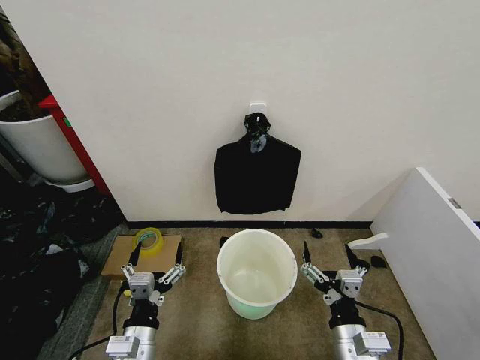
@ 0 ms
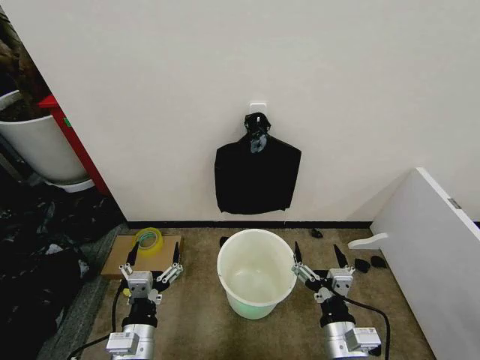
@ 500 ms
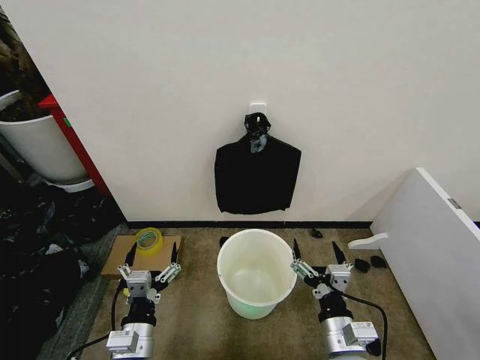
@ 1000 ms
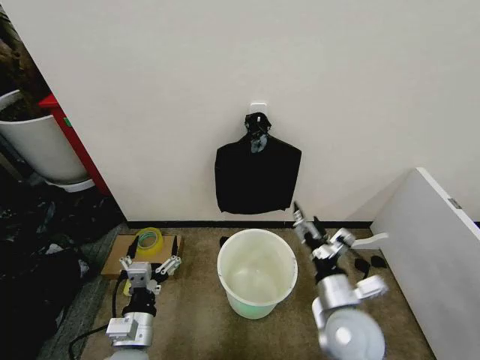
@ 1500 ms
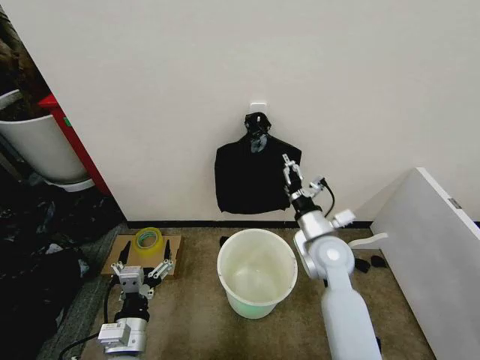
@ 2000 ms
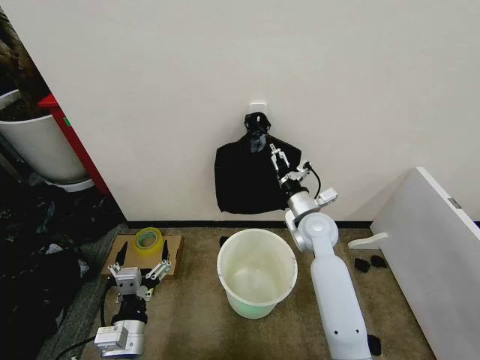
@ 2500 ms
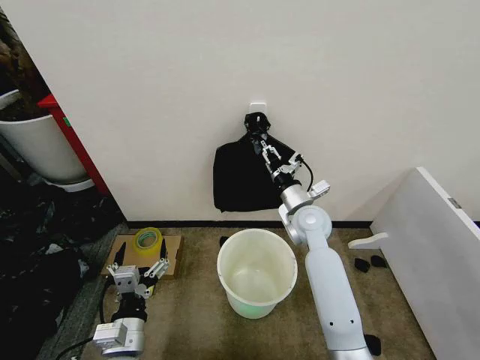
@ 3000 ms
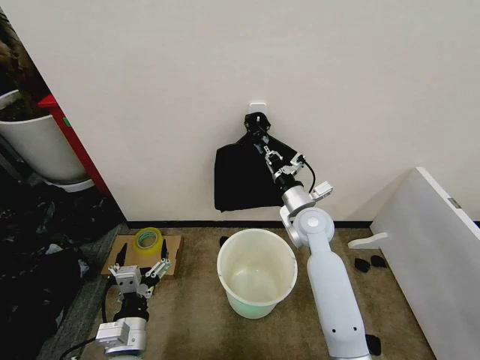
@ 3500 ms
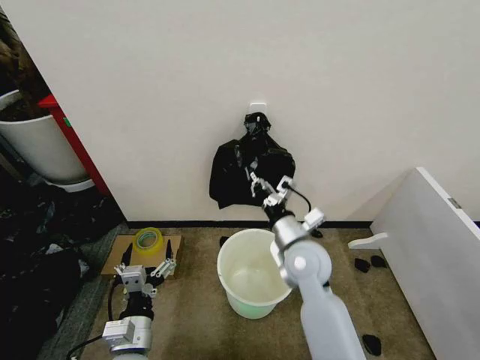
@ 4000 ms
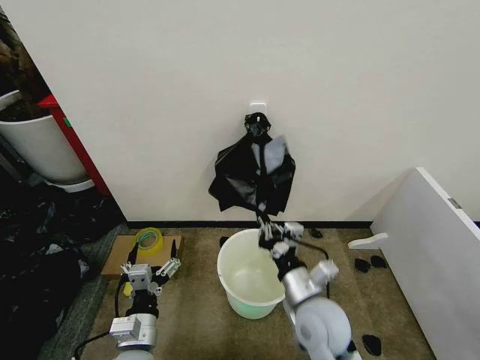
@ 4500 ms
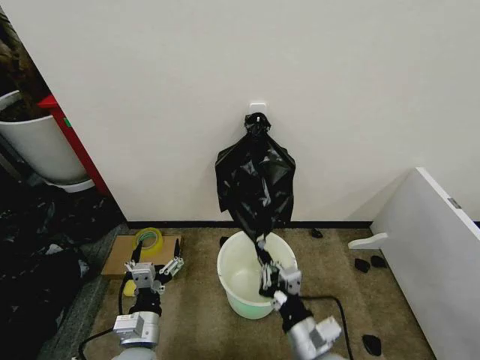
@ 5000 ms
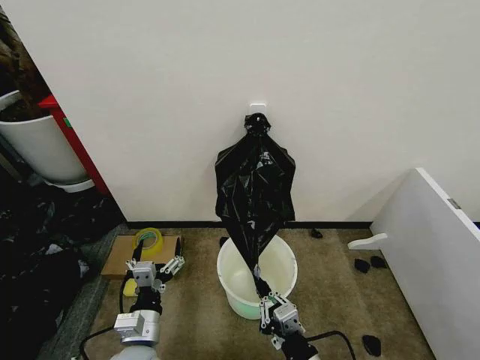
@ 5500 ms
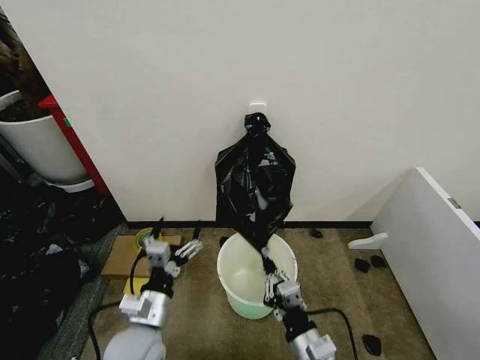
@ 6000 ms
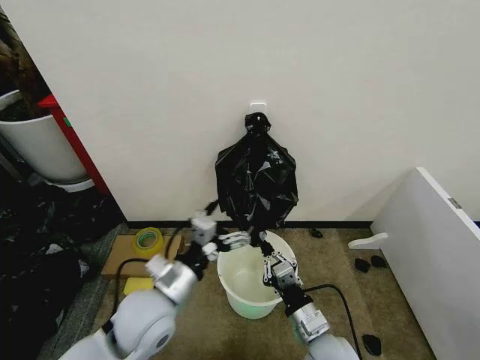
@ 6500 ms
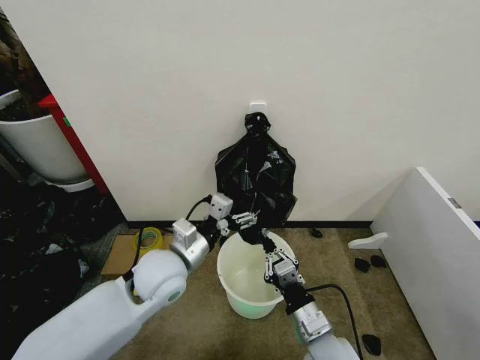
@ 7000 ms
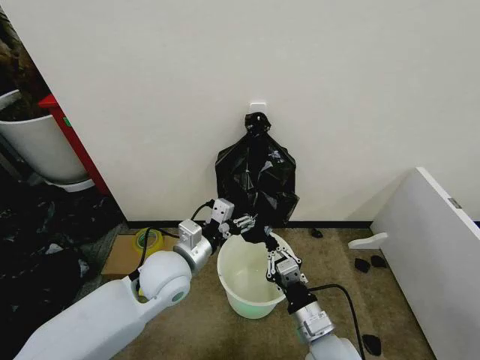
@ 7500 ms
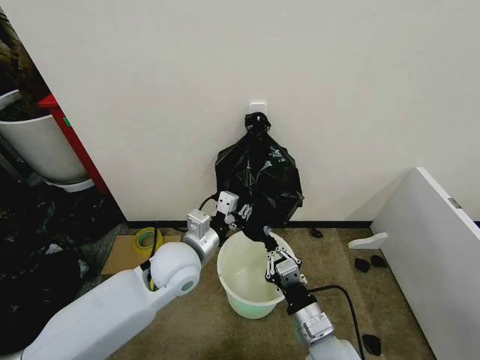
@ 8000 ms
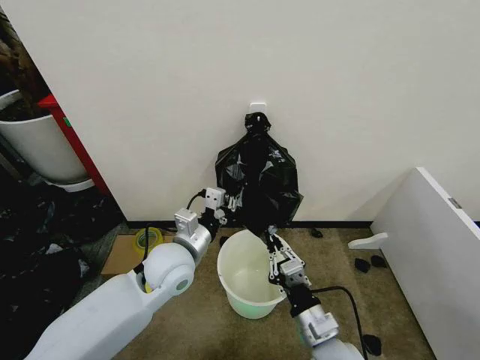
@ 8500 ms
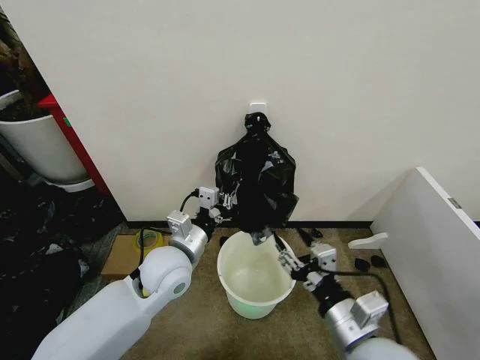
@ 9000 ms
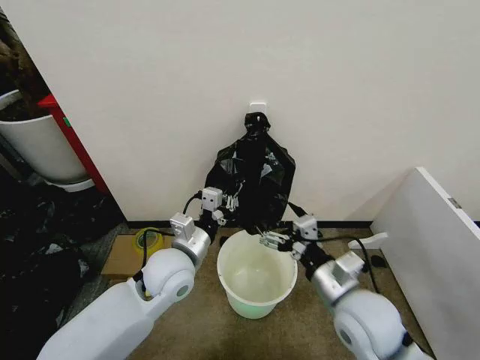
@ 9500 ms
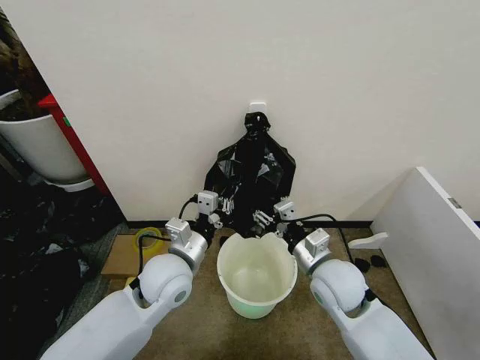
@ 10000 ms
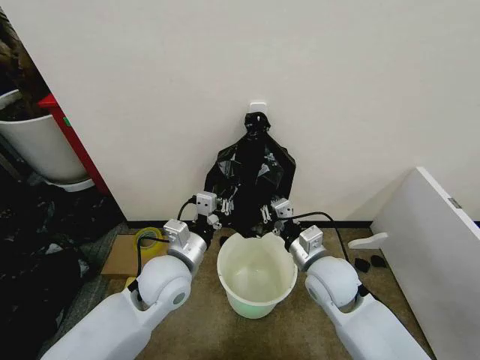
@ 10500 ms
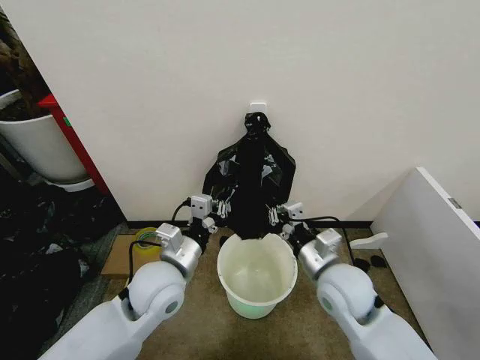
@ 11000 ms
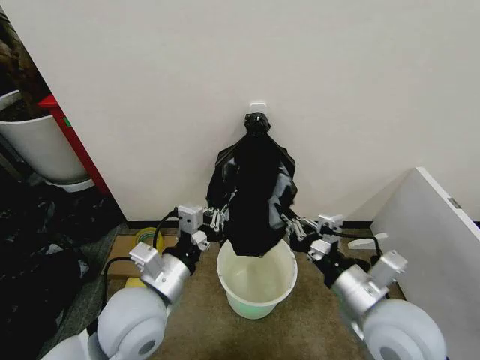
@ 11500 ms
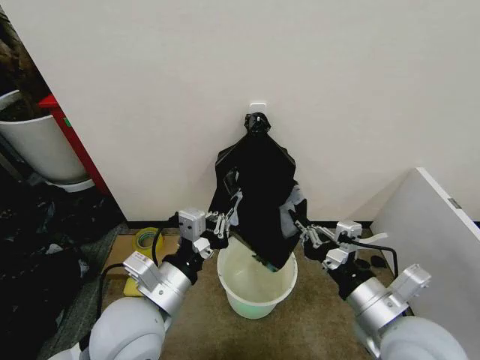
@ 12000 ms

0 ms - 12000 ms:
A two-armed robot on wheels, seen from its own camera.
Task of the whole recording: Place the garbage bag over the trash bin.
2000 ms - 4000 ms: The right gripper shifts approximately 5 cm to the left, moves some 10 cm forward and comes back, and closes.
4000 ms - 6000 ms: The left gripper ends up about 5 cm from where it was; the right gripper shifts roughly 25 cm backward and downward.
6000 ms - 8000 ms: The left gripper travels forward, upward and to the right by roughly 15 cm, and closes.
8000 ms - 10000 ms: The right gripper heads forward and upward, covering some 15 cm, and opens.
10000 ms - 12000 ms: Both grippers travel together backward and upward, approximately 15 cm. The right gripper closes up.

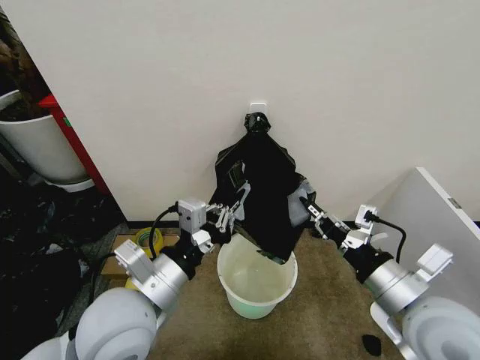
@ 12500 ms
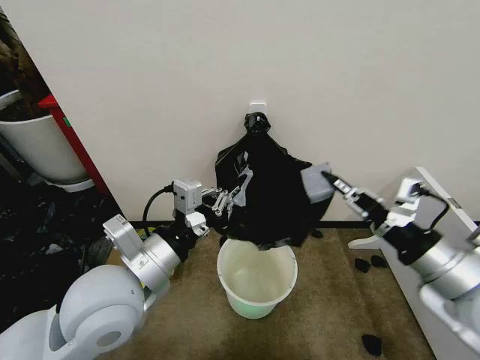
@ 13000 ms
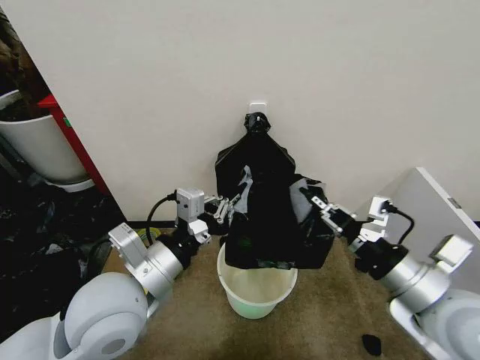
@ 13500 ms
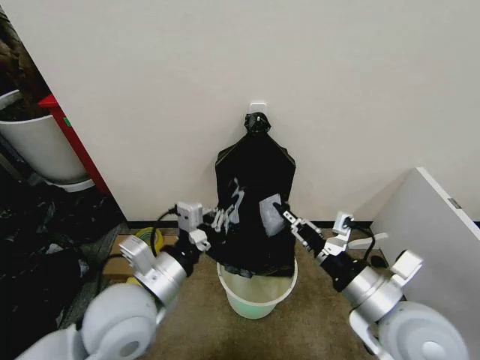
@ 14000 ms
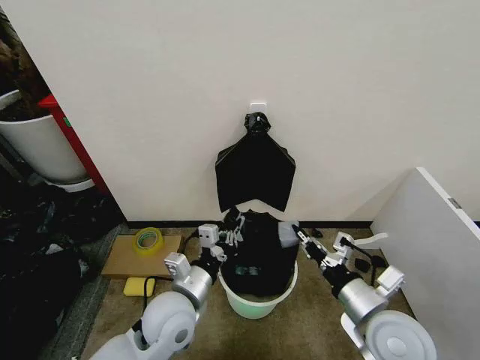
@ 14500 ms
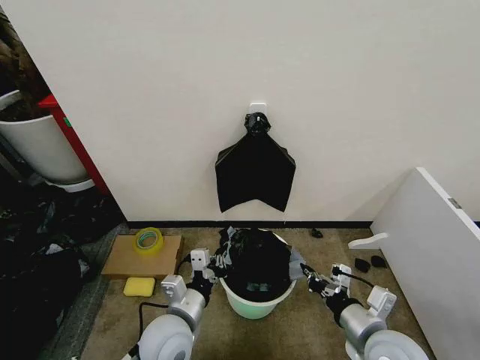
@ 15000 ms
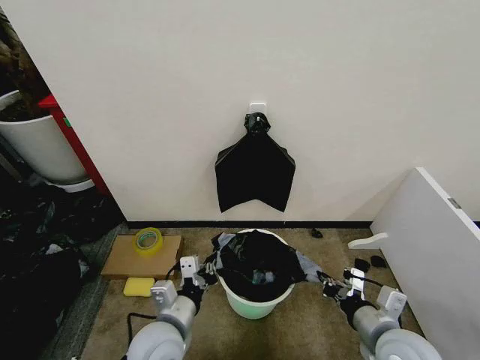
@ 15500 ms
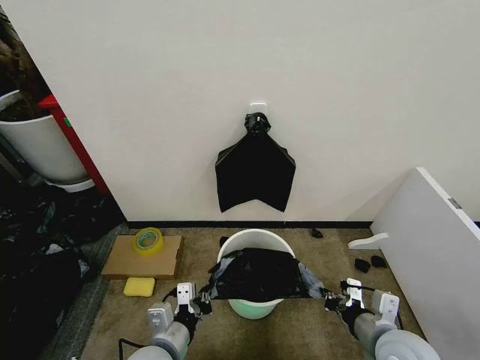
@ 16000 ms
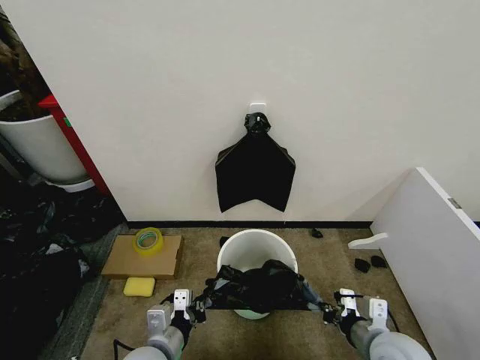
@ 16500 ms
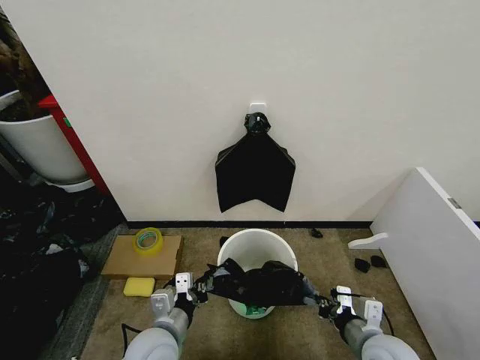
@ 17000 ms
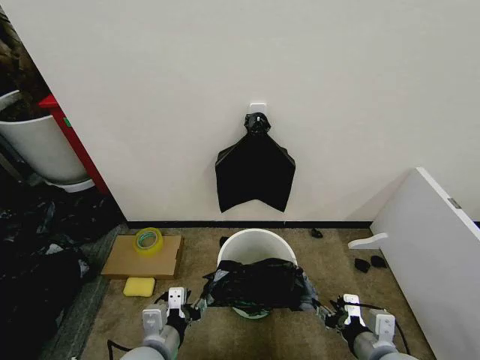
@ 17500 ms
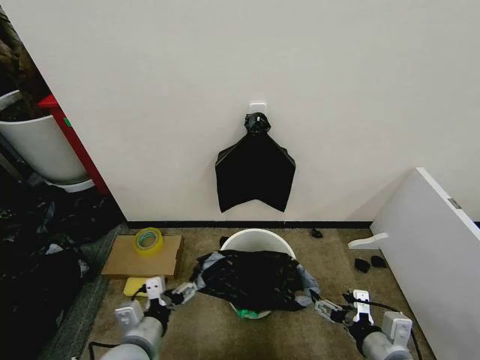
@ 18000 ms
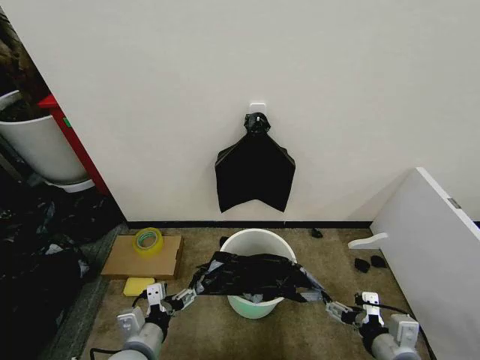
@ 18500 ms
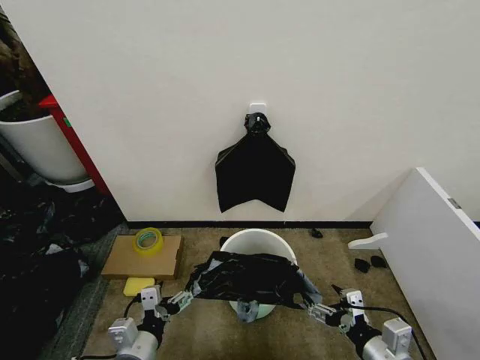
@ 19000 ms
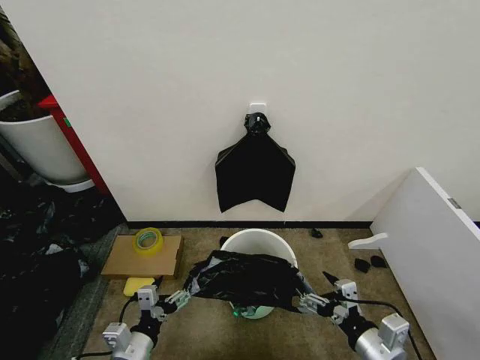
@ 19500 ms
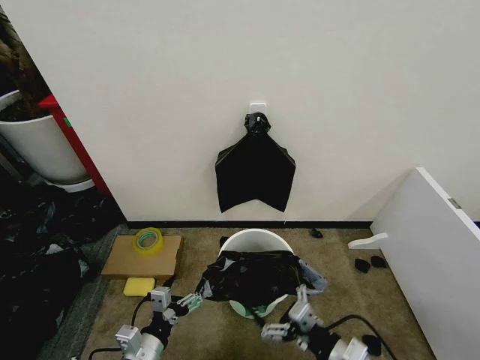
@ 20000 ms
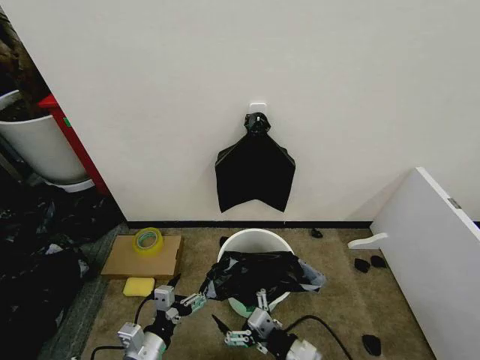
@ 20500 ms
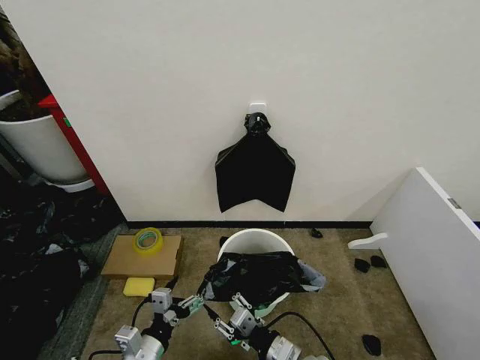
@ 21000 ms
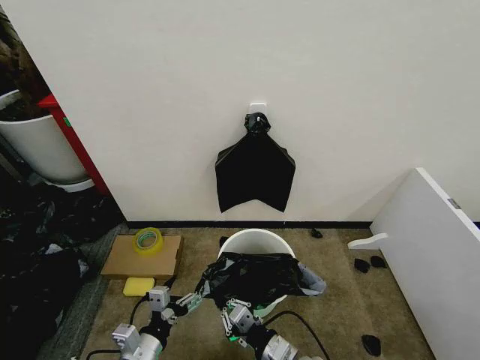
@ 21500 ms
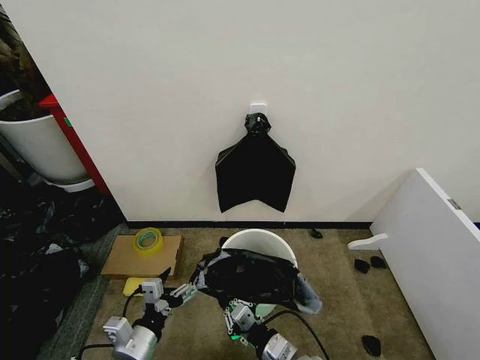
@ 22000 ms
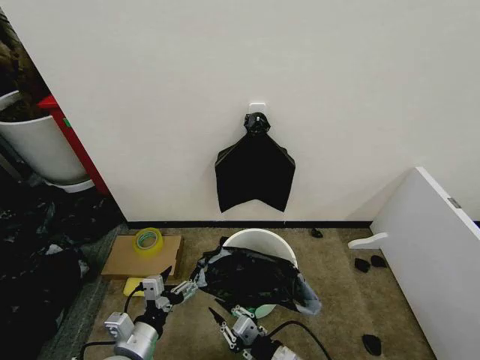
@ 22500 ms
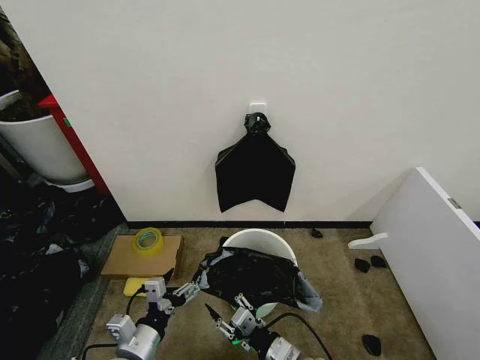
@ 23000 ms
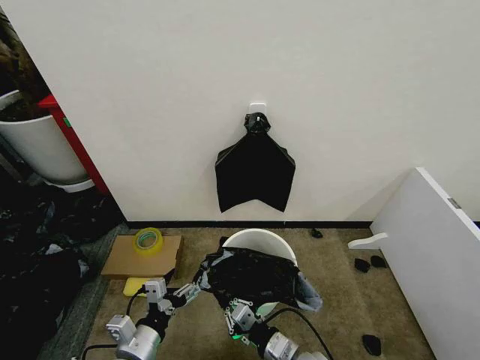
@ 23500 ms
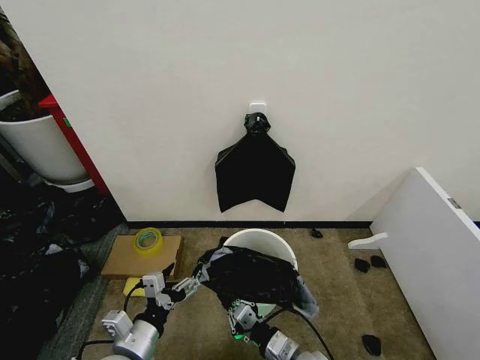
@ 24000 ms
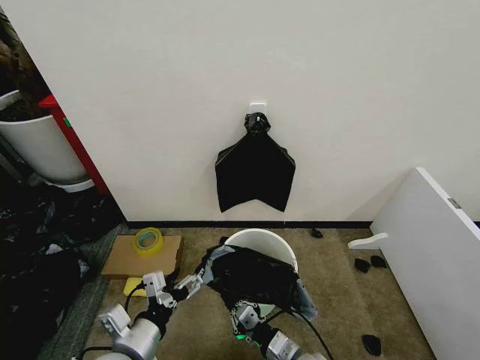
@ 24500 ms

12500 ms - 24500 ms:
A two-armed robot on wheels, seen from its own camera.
Task of the whole recording: Place the garbage bag over the trash bin.
12500 ms - 14500 ms: The grippers both shift downward by roughly 10 cm.
14500 ms - 16500 ms: The left gripper heads backward and downward, covering about 10 cm, while the right gripper moves downward, some 10 cm.
16500 ms - 18500 ms: The left gripper opens its fingers. Meanwhile the right gripper moves roughly 5 cm, and opens.
18500 ms - 20500 ms: The right gripper goes approximately 15 cm to the left.
20500 ms - 22500 ms: The right gripper closes up.
22500 ms - 24500 ms: The left gripper heads upward, covering roughly 5 cm.

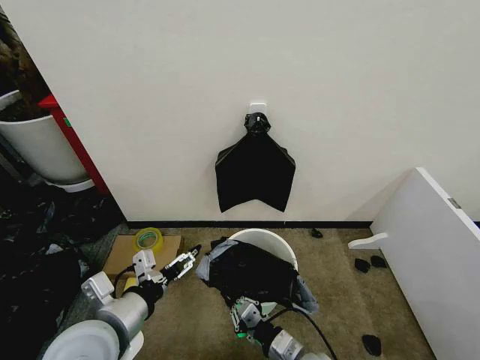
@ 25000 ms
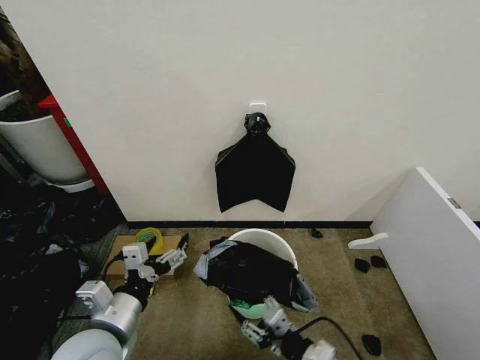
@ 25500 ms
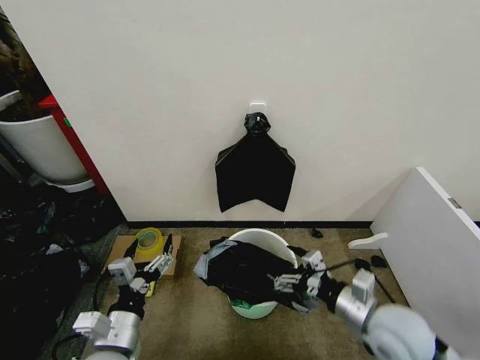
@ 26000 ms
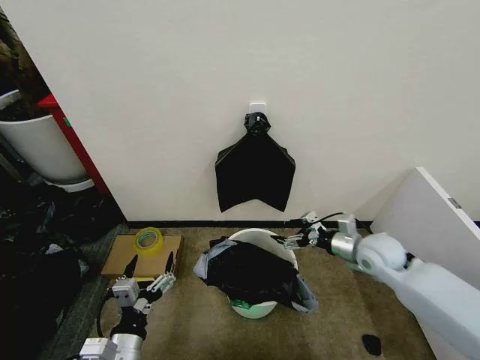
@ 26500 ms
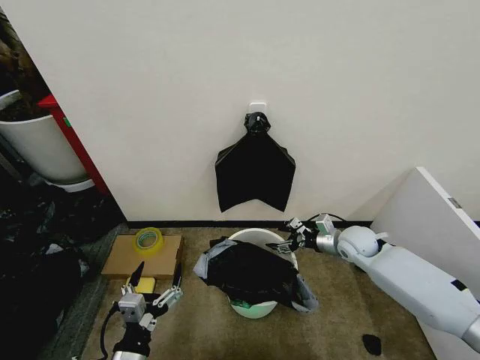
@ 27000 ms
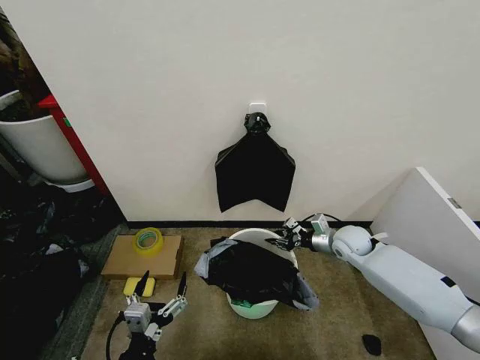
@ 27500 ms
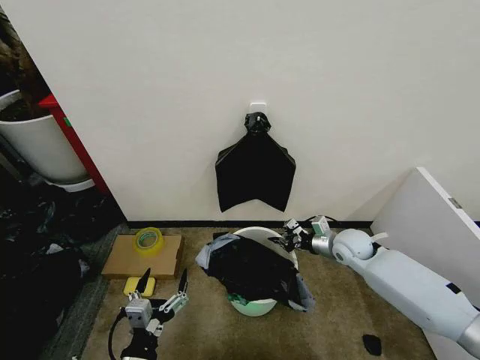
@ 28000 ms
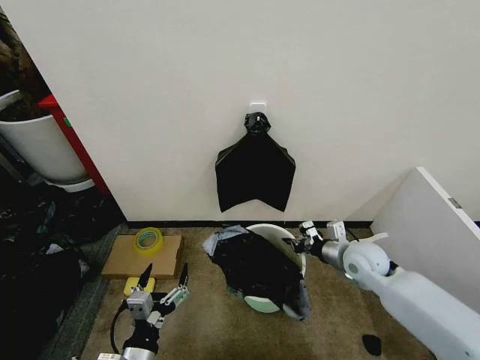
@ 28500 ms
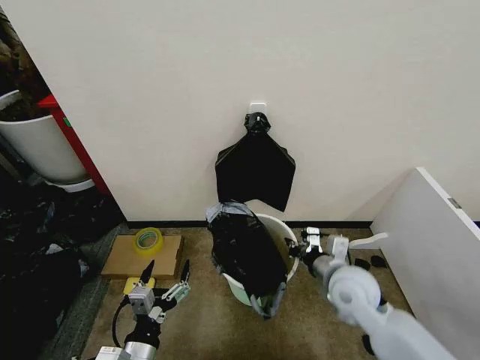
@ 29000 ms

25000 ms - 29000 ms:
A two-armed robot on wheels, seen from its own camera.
Task of the whole recording: Place the garbage bag over the trash bin.
25000 ms - 27000 ms: The left gripper is displaced downward and backward by some 15 cm, while the right gripper travels forward and to the right by approximately 35 cm, and opens.
27000 ms - 29000 ms: The right gripper travels backward and to the left by roughly 15 cm, and closes up.
